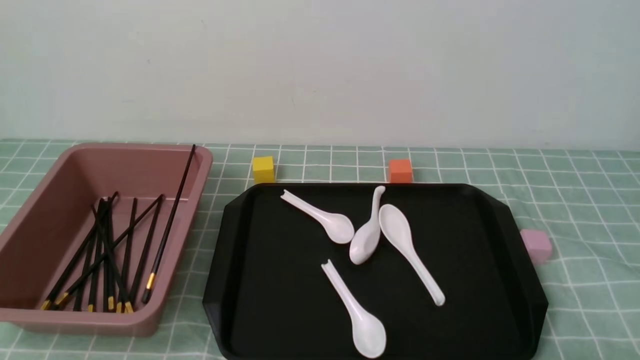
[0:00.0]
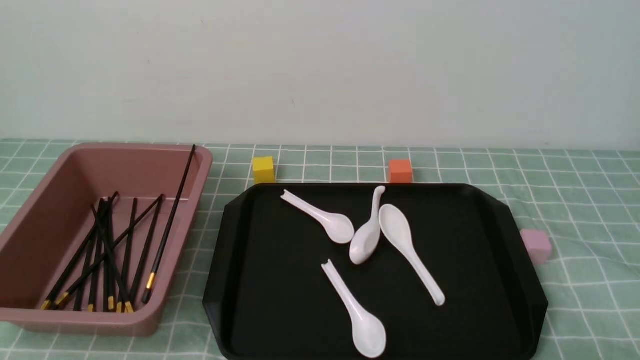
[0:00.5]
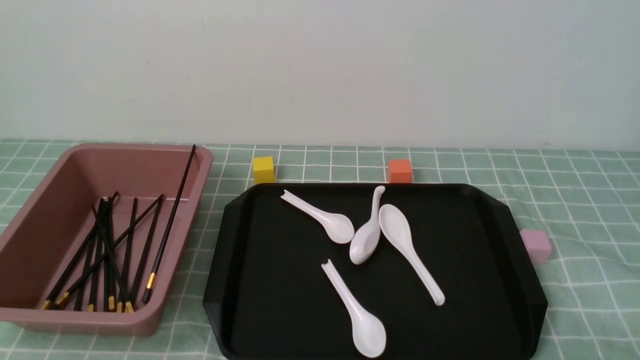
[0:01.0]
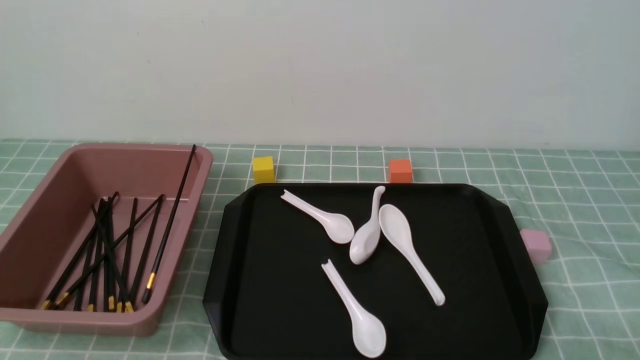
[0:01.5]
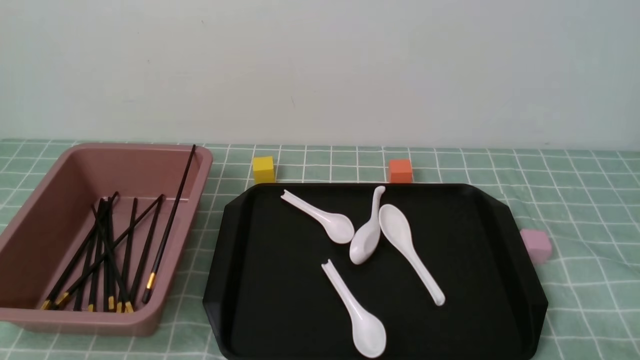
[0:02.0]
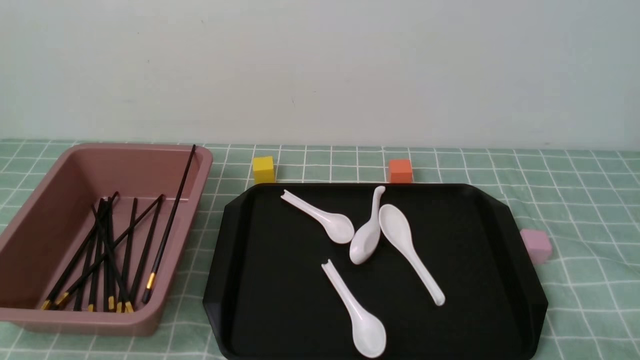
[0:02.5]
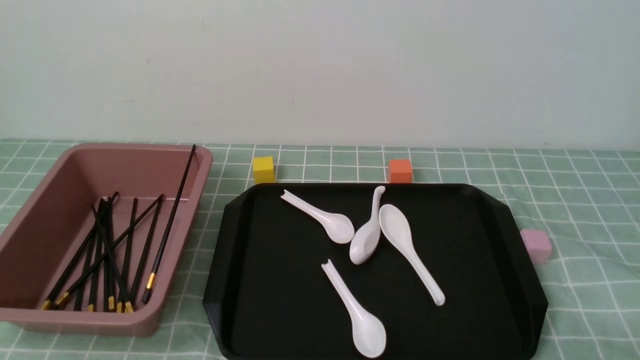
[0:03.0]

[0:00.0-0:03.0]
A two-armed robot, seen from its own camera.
0:01.5 to 0:03.0: Neither gripper changes place.
